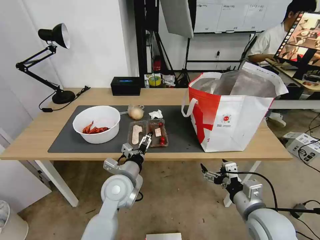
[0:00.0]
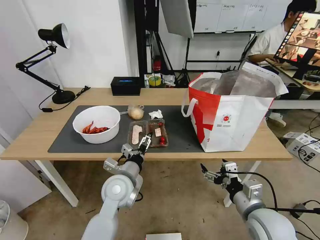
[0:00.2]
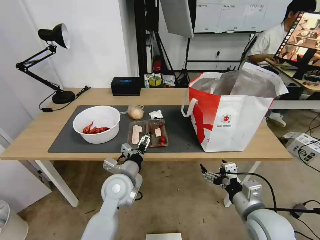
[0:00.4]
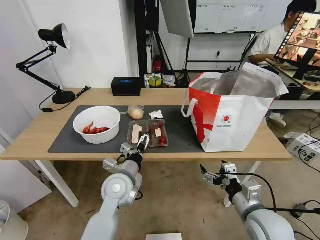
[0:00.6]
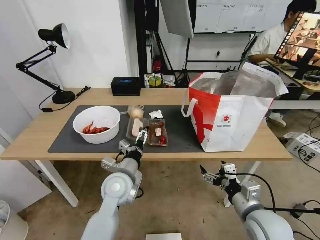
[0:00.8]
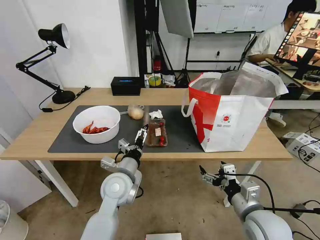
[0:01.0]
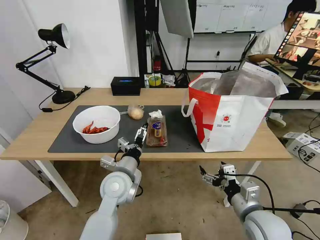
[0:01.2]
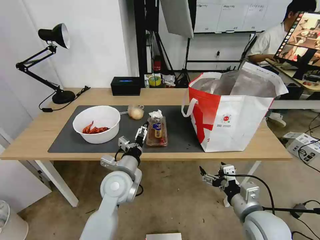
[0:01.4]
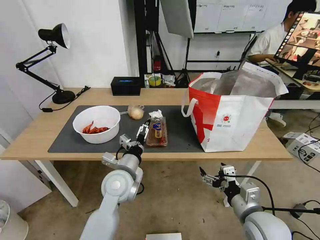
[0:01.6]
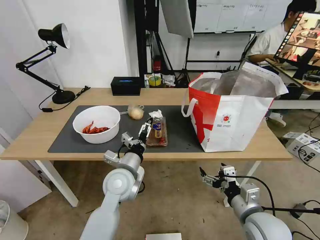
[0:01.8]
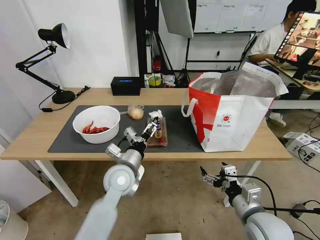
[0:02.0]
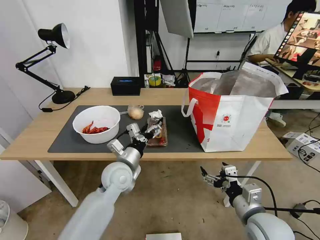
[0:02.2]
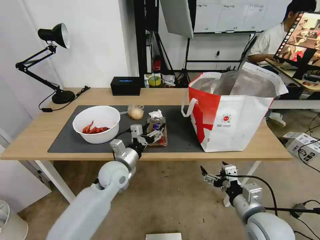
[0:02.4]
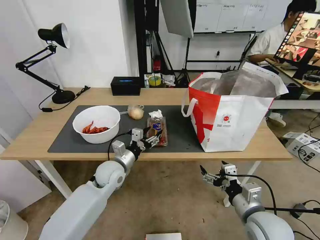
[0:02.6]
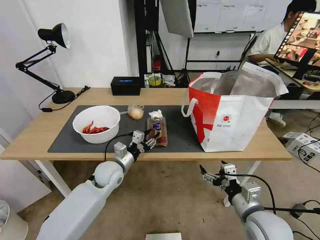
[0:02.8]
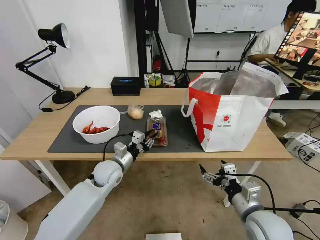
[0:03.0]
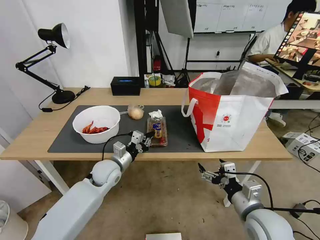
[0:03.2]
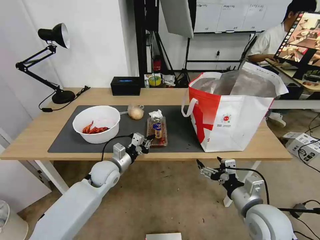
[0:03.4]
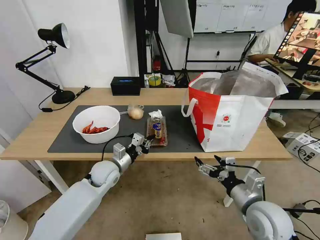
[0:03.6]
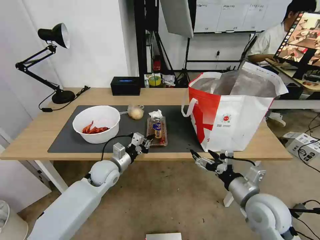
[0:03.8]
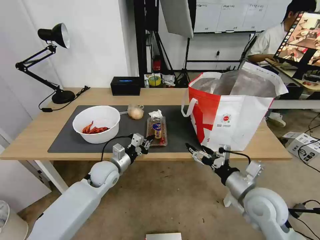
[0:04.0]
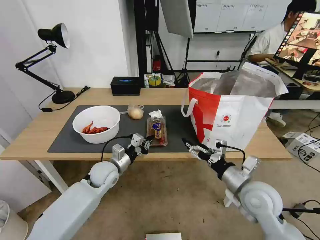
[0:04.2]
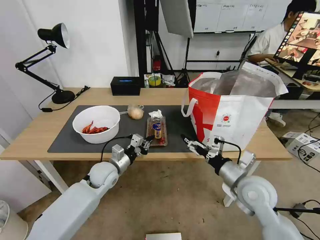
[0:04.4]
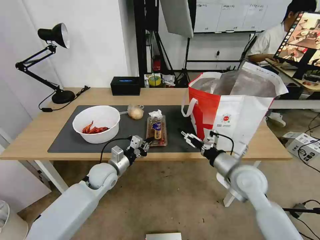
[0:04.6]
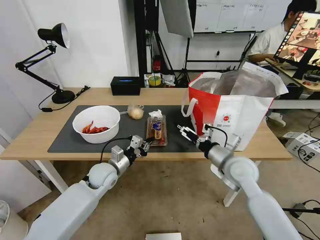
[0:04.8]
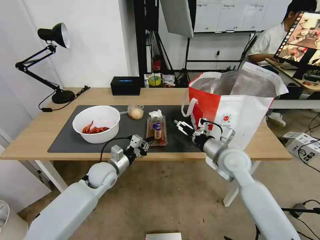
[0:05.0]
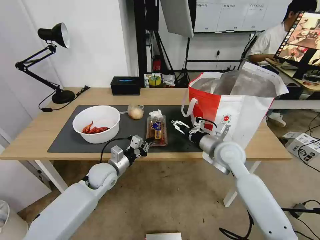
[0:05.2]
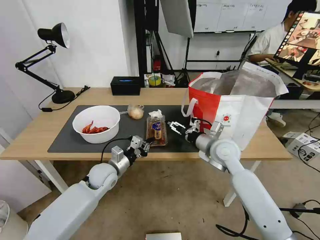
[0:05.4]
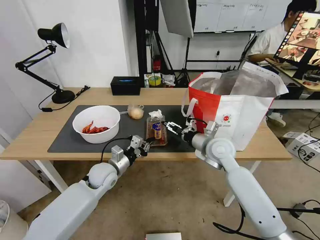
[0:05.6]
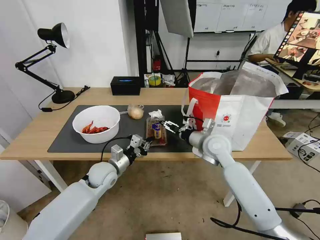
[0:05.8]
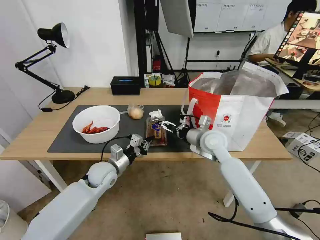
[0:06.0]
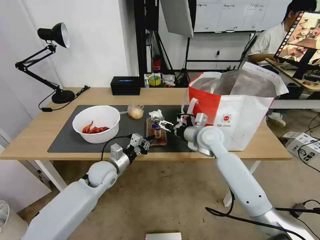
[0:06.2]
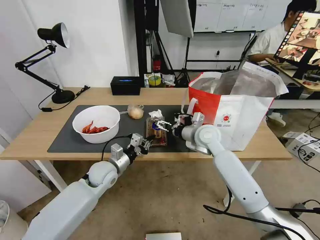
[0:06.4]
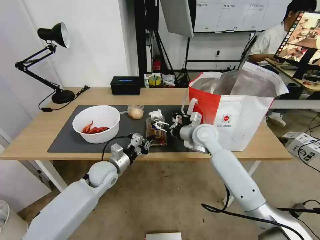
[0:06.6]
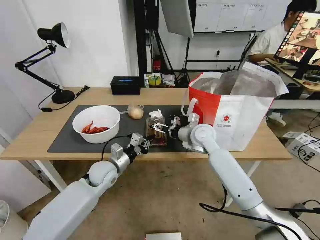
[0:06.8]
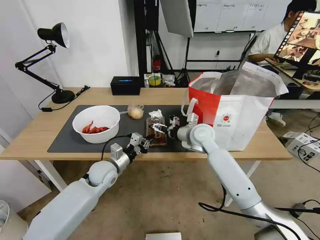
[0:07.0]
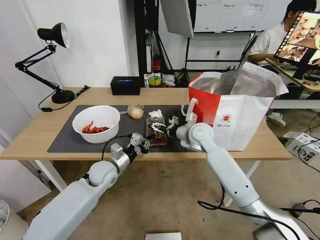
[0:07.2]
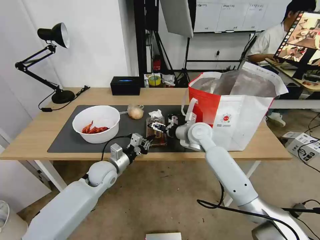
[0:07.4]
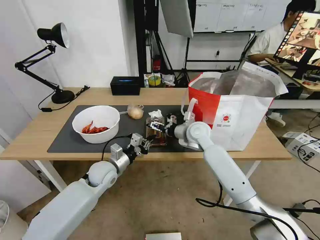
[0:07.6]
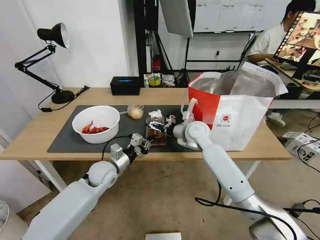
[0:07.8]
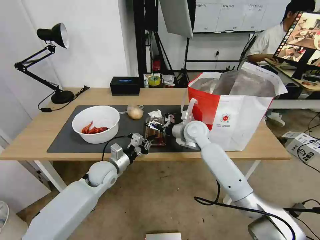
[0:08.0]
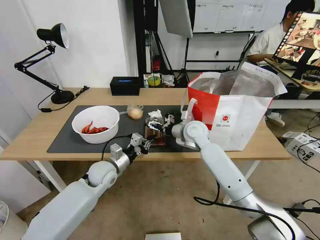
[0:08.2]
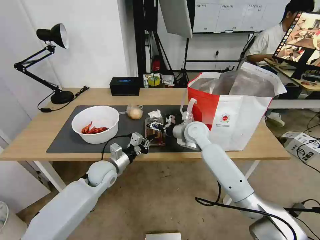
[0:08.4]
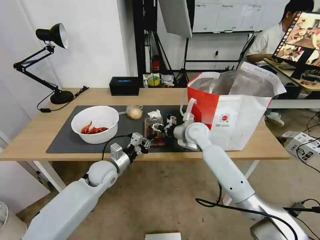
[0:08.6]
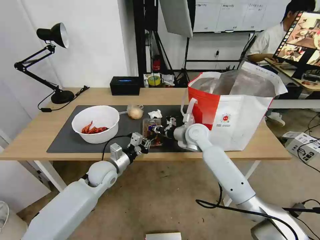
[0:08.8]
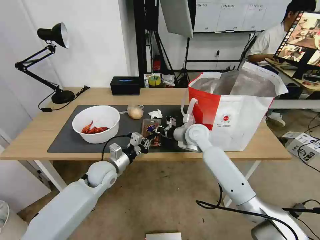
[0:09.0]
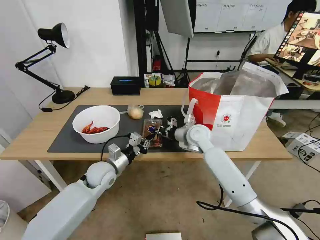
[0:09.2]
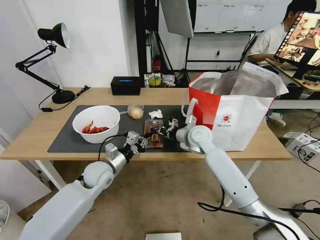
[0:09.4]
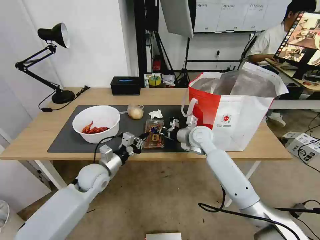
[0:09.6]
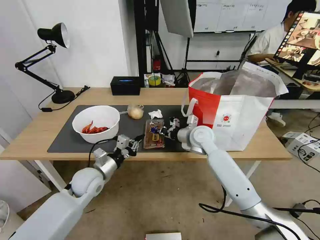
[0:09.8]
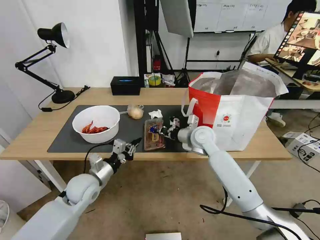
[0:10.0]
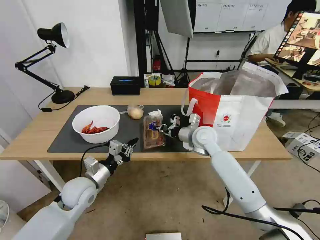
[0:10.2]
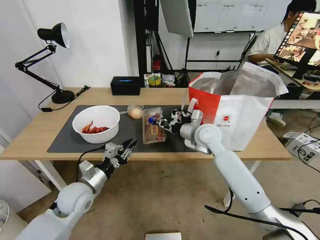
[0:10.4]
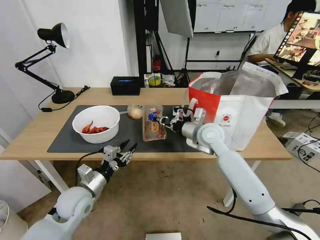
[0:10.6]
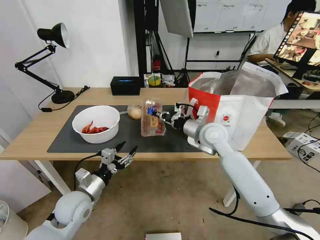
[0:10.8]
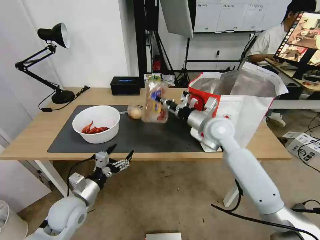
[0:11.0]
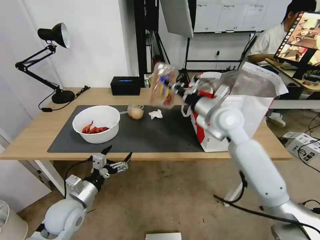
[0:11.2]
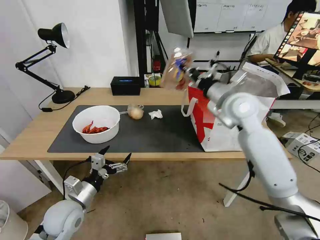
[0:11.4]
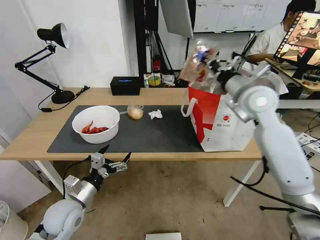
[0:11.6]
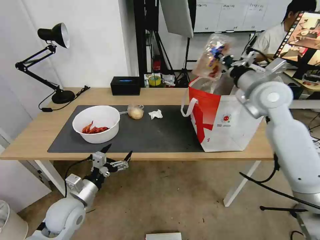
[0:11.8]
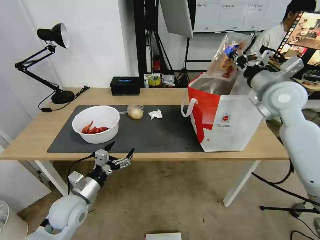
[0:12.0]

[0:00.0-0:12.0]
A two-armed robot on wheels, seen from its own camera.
Task of the whole recording: Pick up the trash from the table and place it into the takeout bag.
0:00.0 to 0:01.6: The grippers move only a little.
0:01.6 to 0:03.0: The left gripper is displaced forward, to the left and downward by roughly 10 cm, and closes up.
0:03.0 to 0:04.4: The right gripper heads forward, covering roughly 10 cm.
0:04.4 to 0:06.0: The right gripper is displaced forward and to the left by some 20 cm.
0:06.0 to 0:07.6: The right gripper ends up some 5 cm from where it was.
0:07.6 to 0:09.0: The right gripper closes its fingers.
0:09.0 to 0:10.4: The left gripper travels backward and to the left by about 10 cm. The right gripper changes place by roughly 5 cm.
0:10.4 to 0:12.0: The right gripper shifts some 25 cm upward and to the right, while the left gripper opens its fingers.

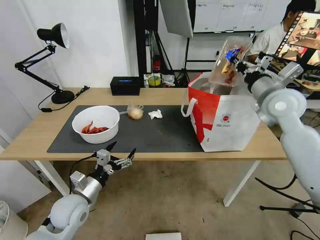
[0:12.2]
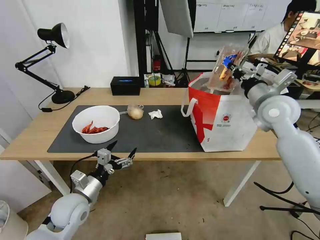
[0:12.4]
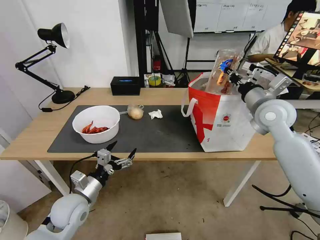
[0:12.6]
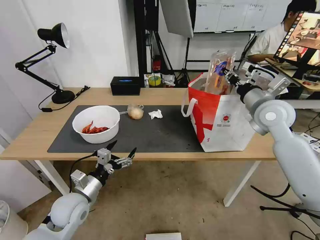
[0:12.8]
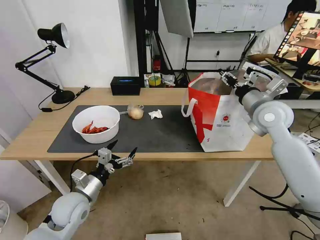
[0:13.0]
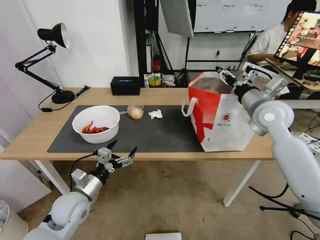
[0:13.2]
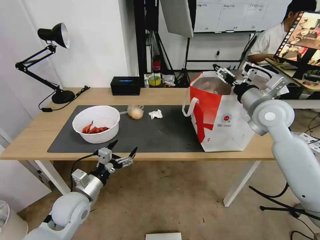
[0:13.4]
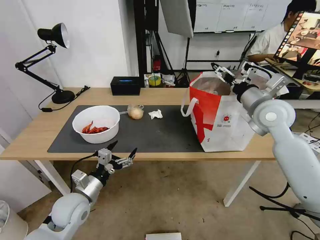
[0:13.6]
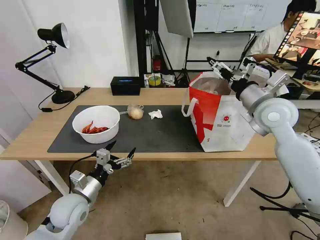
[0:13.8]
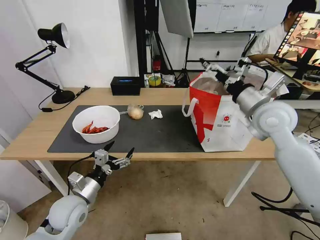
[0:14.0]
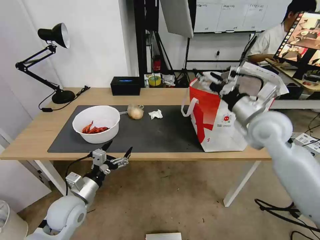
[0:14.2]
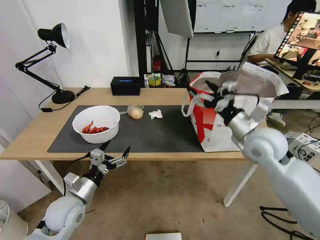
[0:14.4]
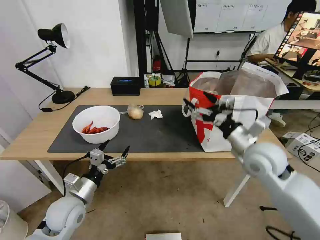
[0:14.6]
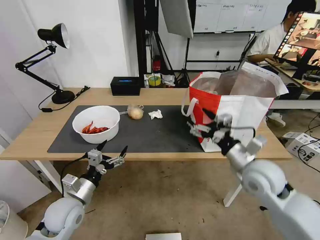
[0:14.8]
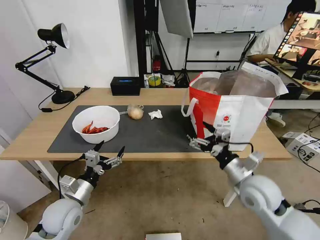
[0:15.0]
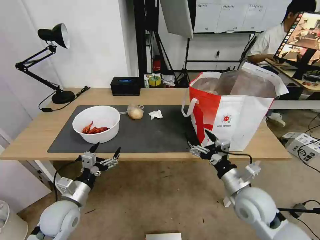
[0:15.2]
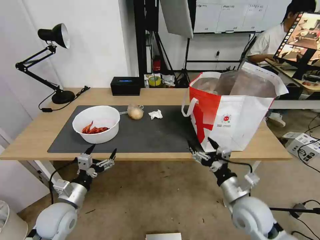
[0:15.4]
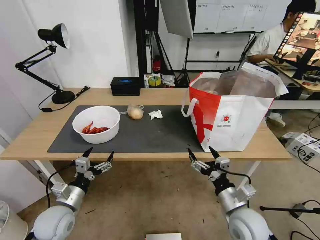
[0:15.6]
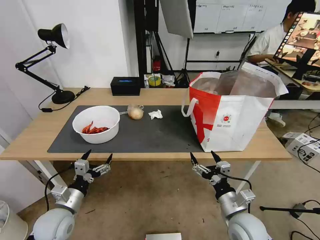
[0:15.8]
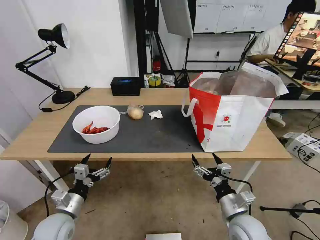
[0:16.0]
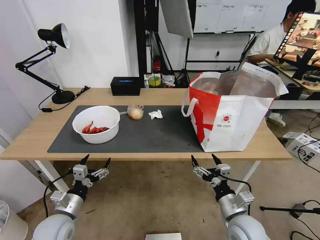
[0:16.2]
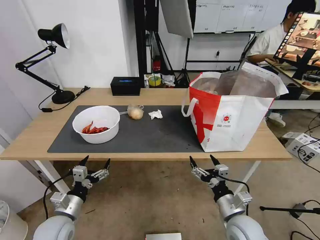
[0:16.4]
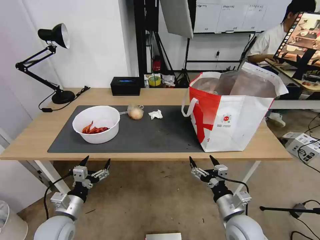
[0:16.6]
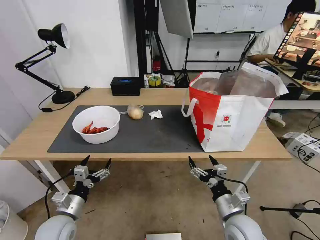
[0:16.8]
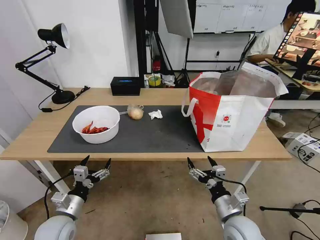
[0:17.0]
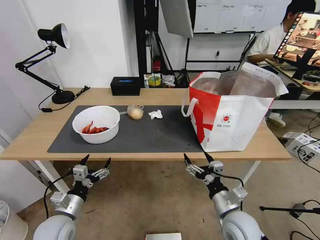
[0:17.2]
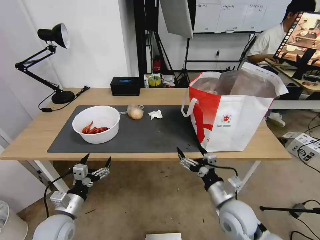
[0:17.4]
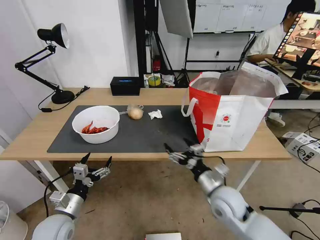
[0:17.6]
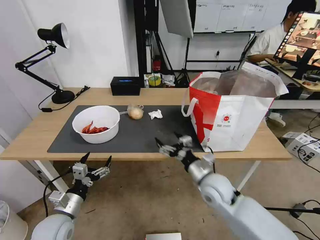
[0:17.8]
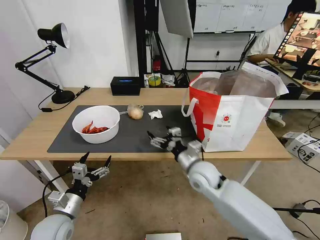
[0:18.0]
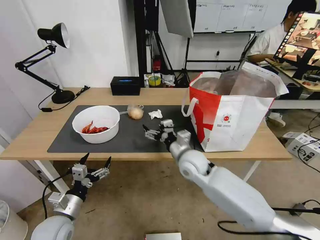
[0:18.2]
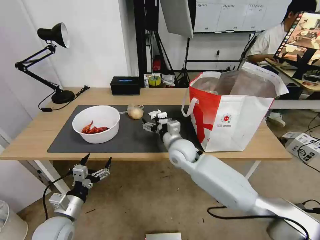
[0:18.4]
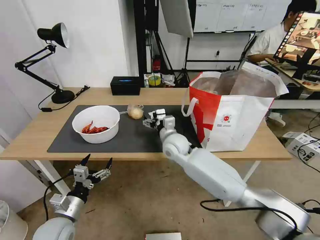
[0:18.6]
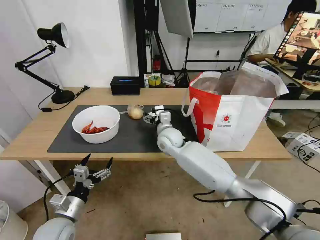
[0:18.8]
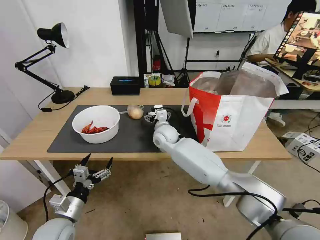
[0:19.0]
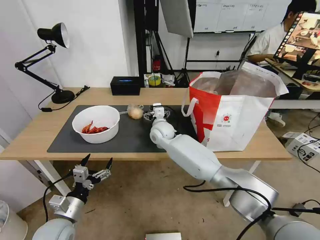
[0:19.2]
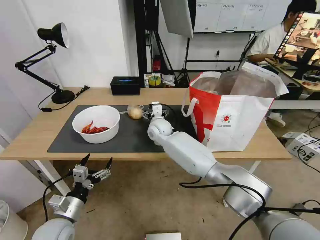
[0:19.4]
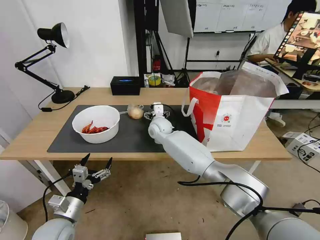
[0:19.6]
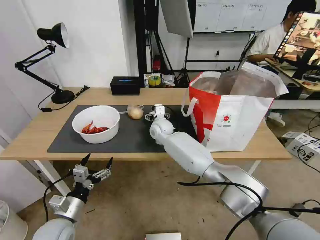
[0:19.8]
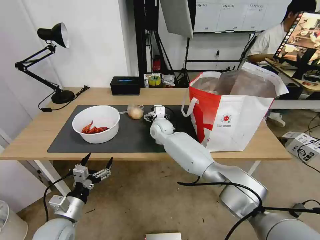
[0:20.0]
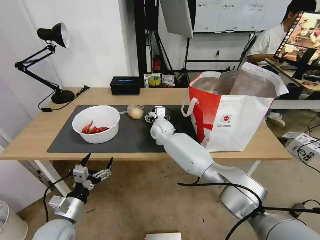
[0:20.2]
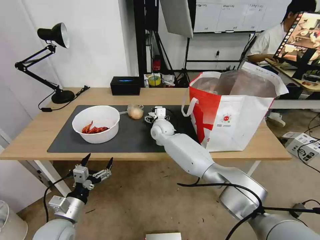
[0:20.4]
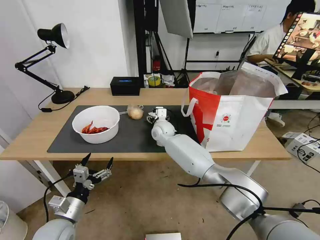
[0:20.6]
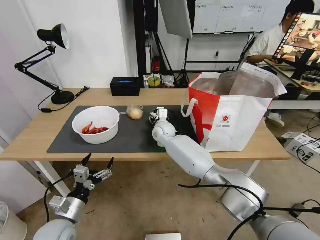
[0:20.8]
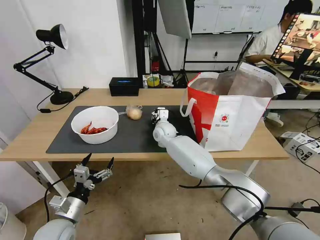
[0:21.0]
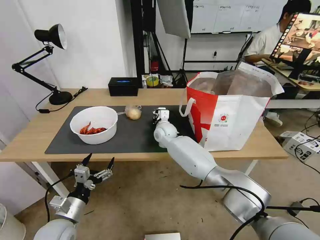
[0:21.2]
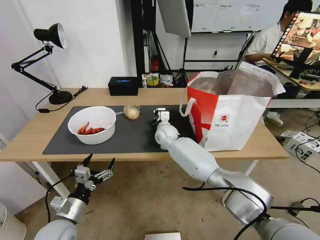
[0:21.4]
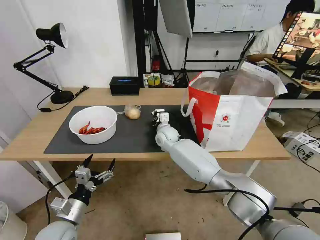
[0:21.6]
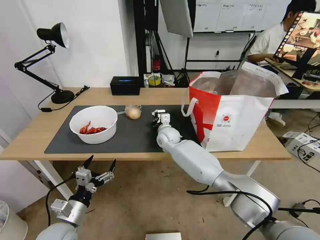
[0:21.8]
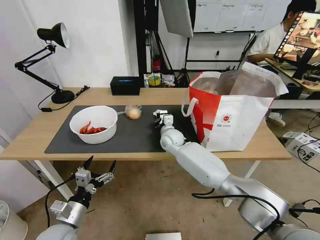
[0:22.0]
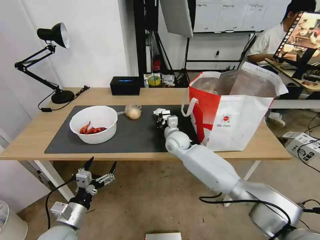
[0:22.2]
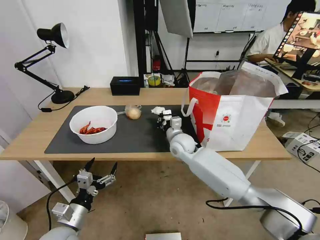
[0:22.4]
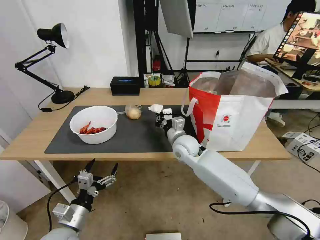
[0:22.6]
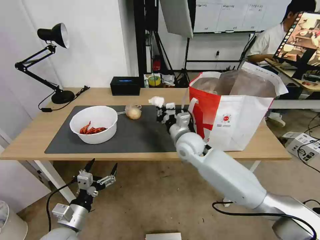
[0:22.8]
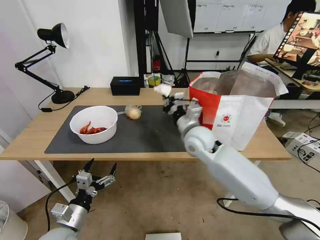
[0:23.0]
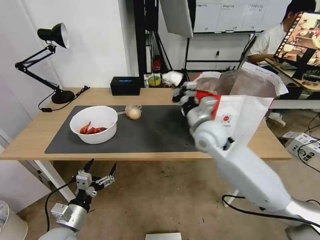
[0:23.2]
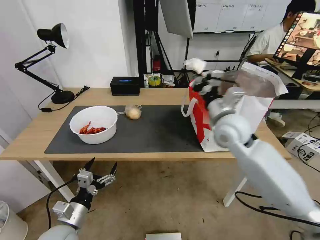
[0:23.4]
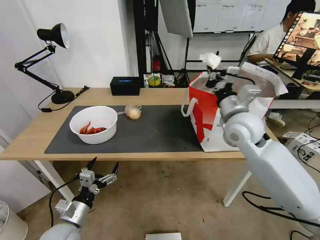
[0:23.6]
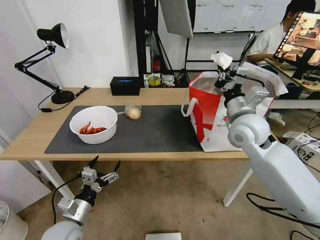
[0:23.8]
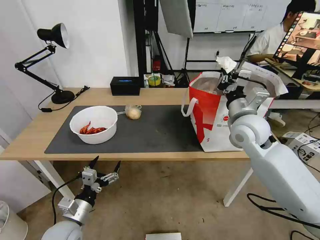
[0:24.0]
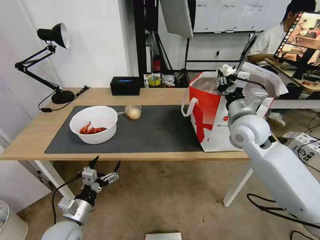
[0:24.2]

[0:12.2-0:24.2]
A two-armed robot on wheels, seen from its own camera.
Task of the whole recording: Pick up the trash from the table and place it into the takeout bag.
0:12.2 to 0:13.8: The right gripper opens its fingers.
0:13.8 to 0:15.2: The right gripper travels downward and backward by approximately 25 cm.
0:15.2 to 0:16.6: The right gripper travels downward and backward by some 10 cm, while the left gripper moves approximately 5 cm.
0:16.6 to 0:18.2: The right gripper shifts about 25 cm forward, to the left and upward.
0:18.2 to 0:19.8: The right gripper goes some 20 cm forward and to the left.
0:19.8 to 0:21.2: The right gripper closes up.
0:21.2 to 0:22.6: The right gripper is displaced backward and to the right by about 10 cm.
0:22.6 to 0:24.2: The right gripper shifts some 20 cm to the right and upward.
